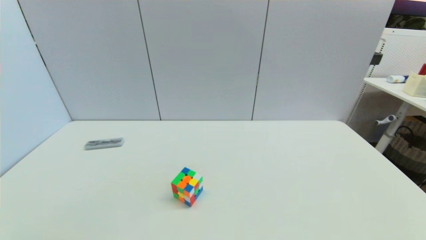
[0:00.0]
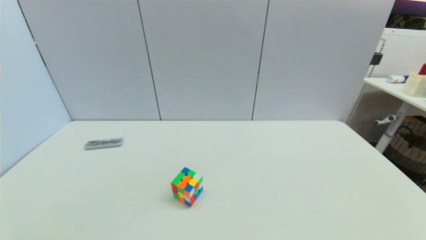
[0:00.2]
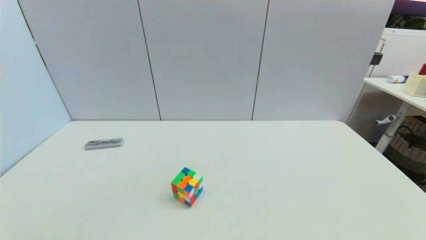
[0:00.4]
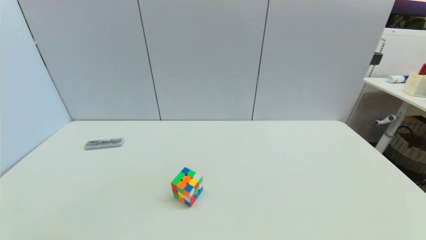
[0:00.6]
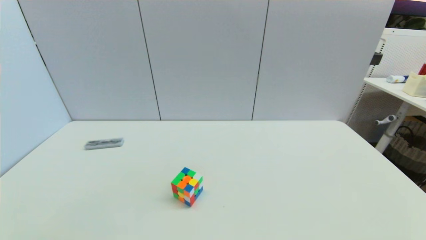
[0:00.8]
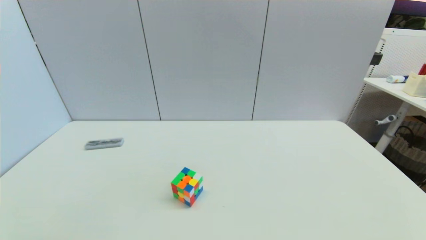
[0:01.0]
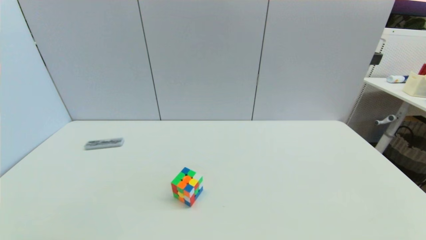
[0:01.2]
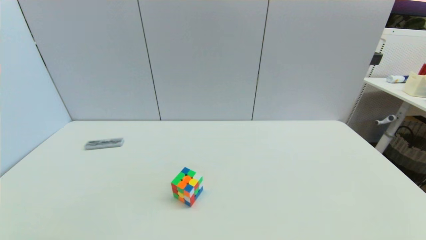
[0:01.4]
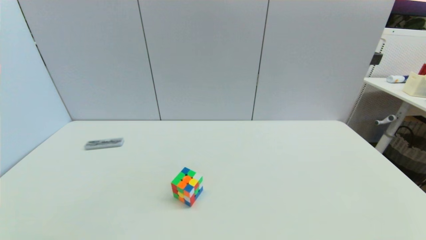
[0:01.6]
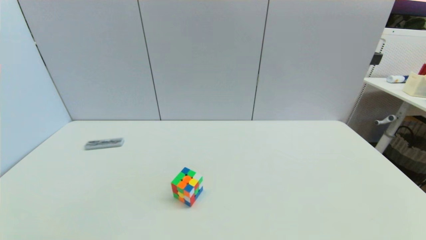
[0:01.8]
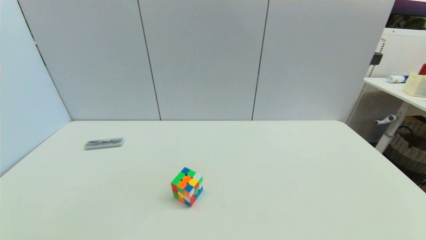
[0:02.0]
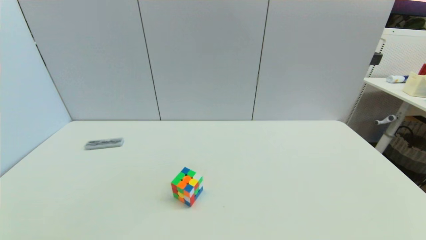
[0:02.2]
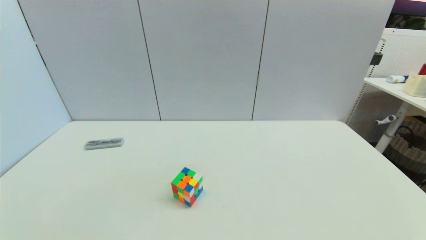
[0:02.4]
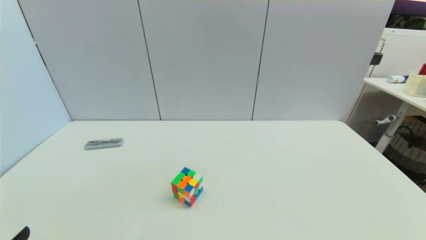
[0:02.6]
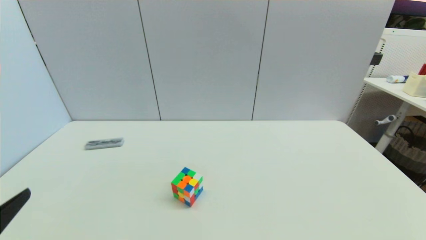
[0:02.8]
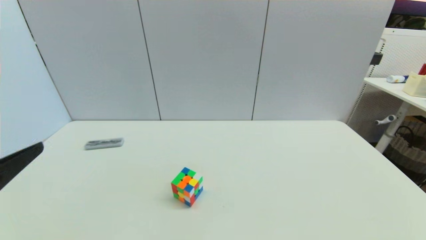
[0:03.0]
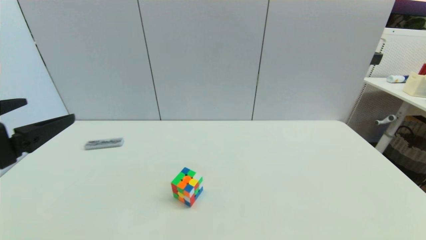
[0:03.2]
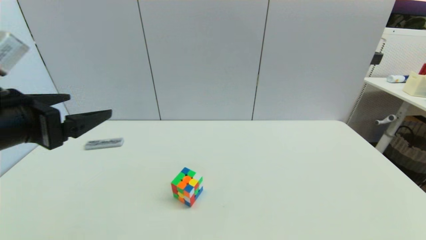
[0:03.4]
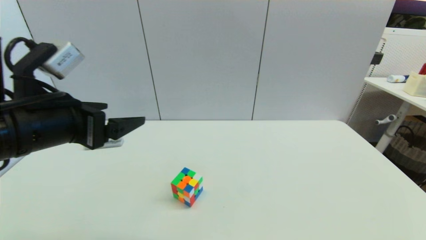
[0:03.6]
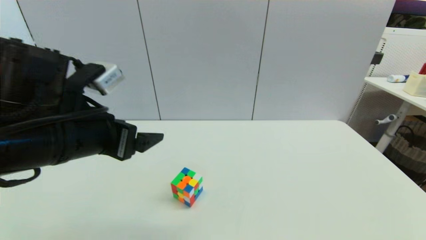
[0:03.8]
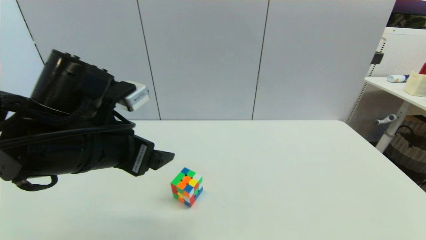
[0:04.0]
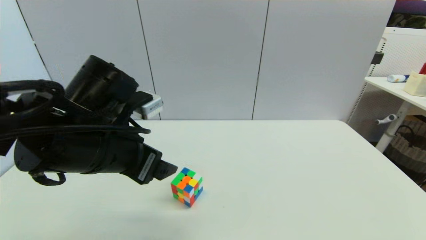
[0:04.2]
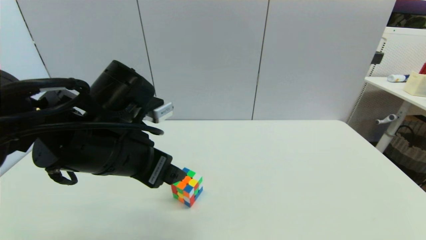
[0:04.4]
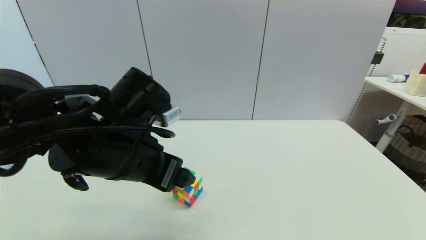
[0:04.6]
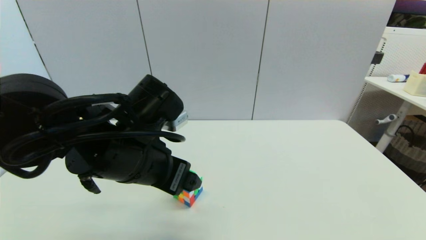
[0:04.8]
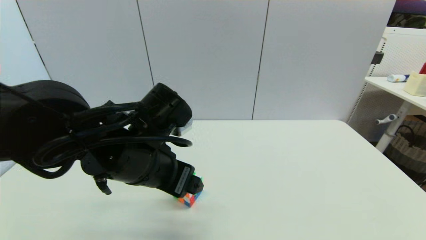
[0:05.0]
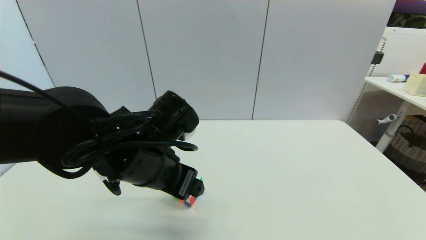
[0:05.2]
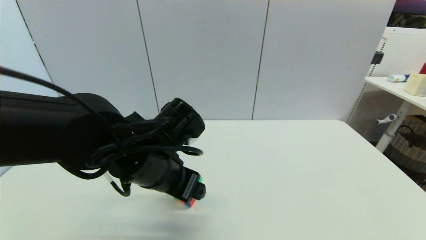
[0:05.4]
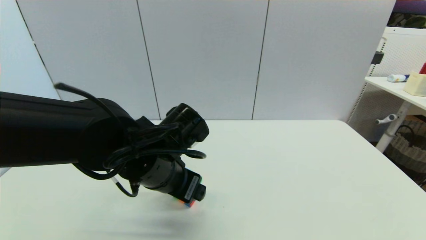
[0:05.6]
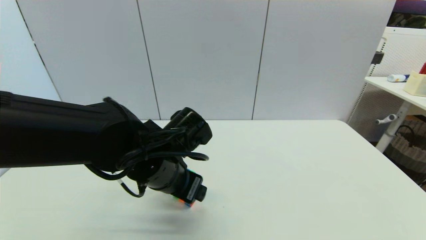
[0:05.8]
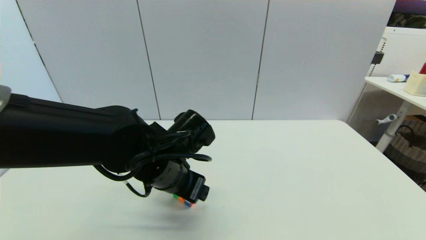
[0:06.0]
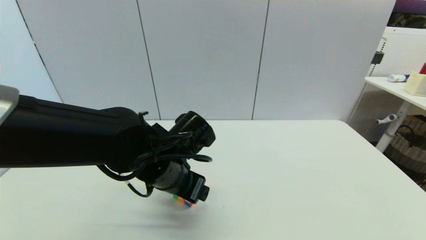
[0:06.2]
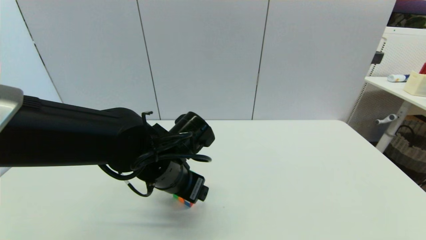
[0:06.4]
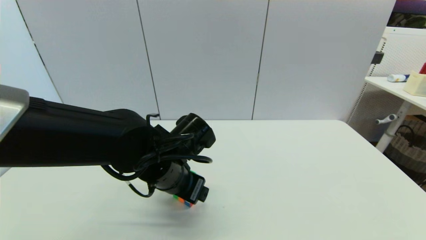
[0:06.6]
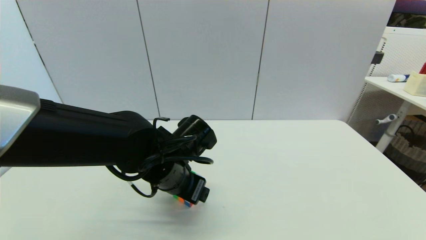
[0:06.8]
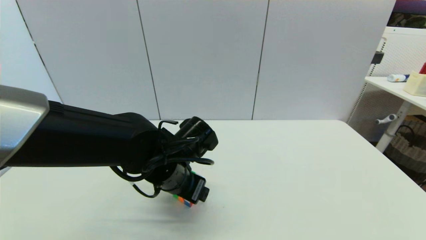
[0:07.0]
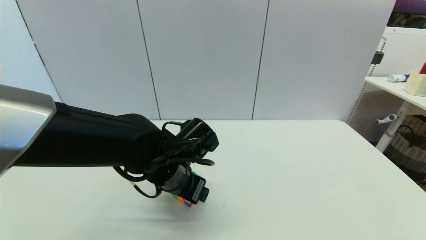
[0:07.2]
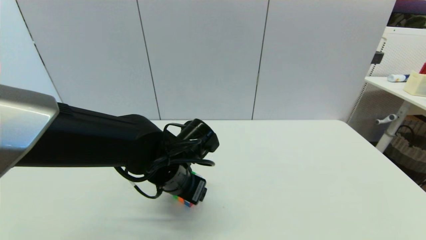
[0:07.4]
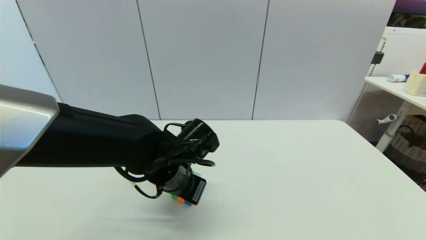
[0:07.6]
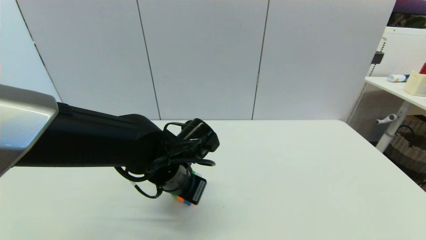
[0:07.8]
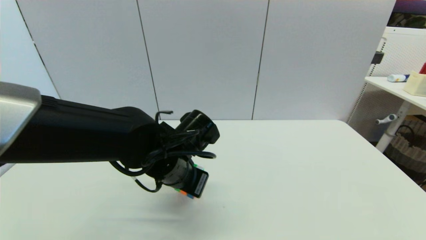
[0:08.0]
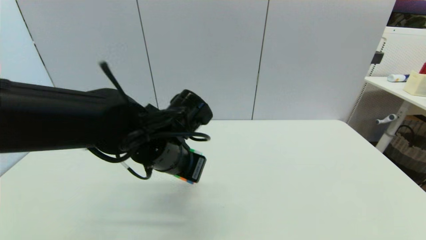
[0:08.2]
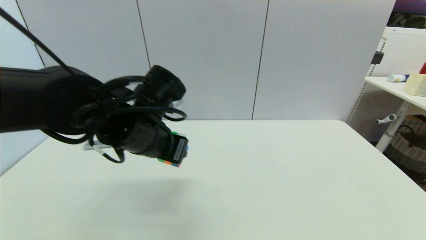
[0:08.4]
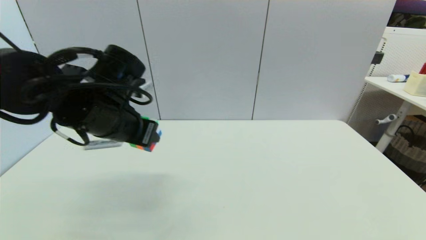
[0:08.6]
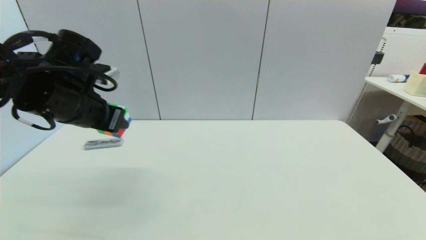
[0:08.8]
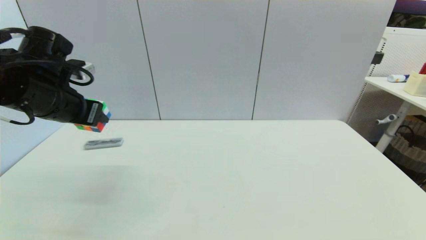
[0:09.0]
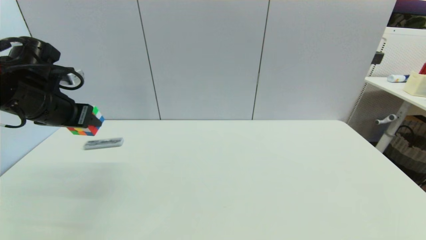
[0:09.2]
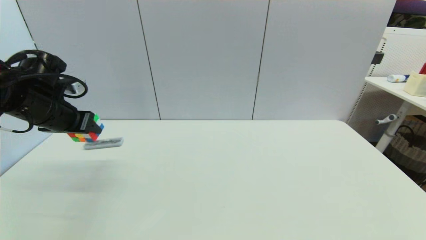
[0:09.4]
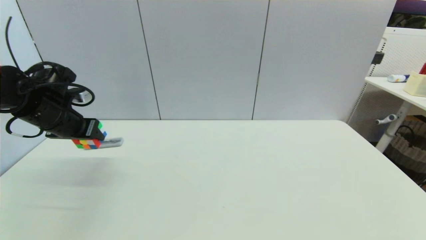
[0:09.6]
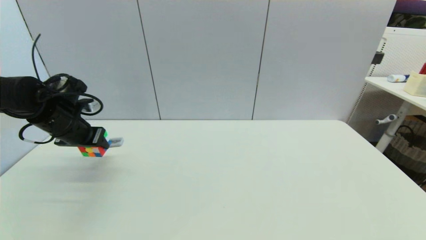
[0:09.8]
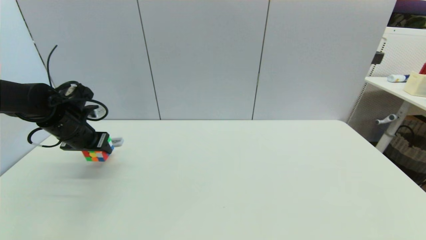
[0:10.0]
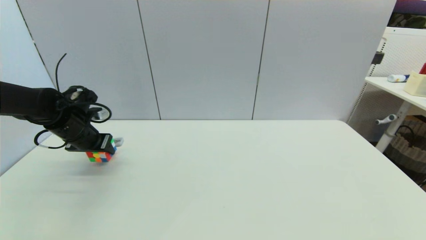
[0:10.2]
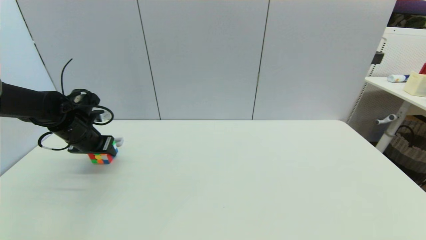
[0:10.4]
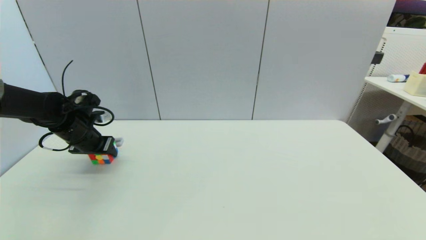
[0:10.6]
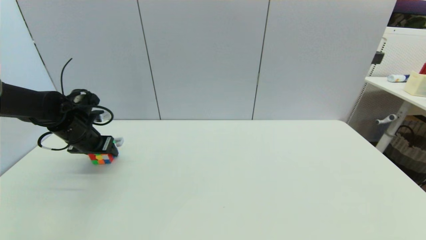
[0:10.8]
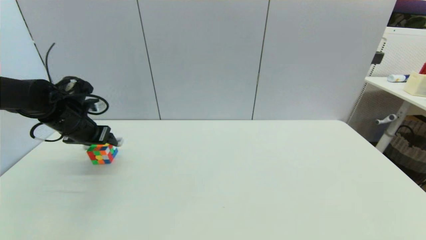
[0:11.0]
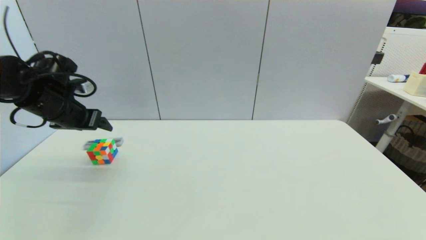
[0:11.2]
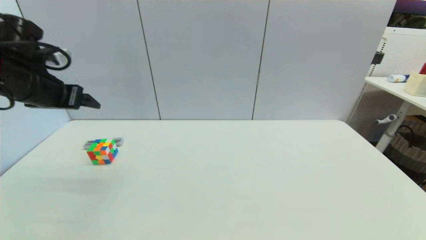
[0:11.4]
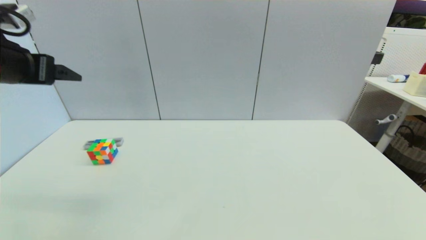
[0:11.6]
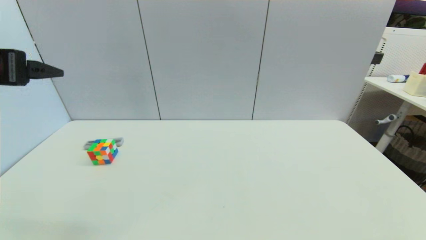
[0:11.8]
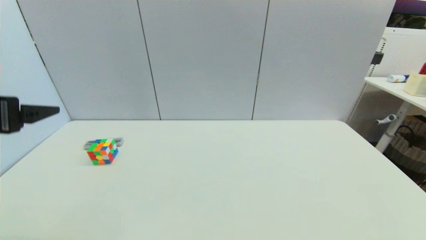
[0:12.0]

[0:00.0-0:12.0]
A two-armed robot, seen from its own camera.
Step, 0:02.6 to 0:07.6: Grasp the magic cube with left gripper.
Step, 0:07.8 to 0:11.0: Place the magic cube on the table with left gripper.
0:00.0 to 0:01.6: Both grippers stay about where they are.
0:01.6 to 0:03.0: The left gripper goes approximately 20 cm upward and forward.
0:03.0 to 0:04.4: The left gripper goes approximately 20 cm to the right and forward.
0:04.4 to 0:06.0: The left gripper moves downward and to the right, approximately 10 cm.
0:06.0 to 0:07.6: The left gripper closes.
0:07.6 to 0:09.0: The left gripper is displaced to the left and upward by roughly 25 cm.
0:09.0 to 0:10.4: The left gripper travels downward, forward and to the left by roughly 15 cm.
0:10.4 to 0:12.0: The left gripper travels backward and upward by some 25 cm, and opens its fingers.

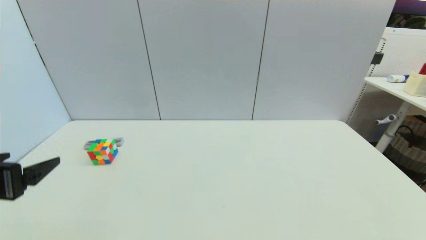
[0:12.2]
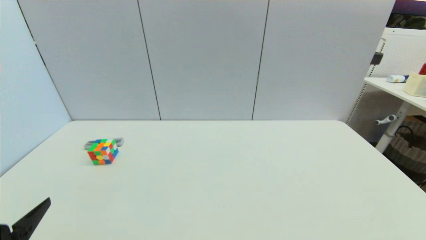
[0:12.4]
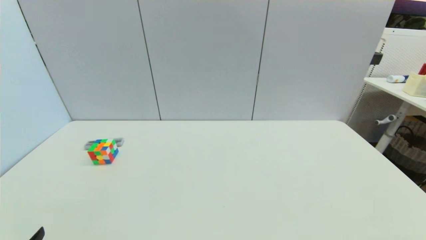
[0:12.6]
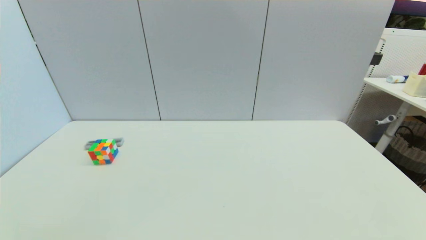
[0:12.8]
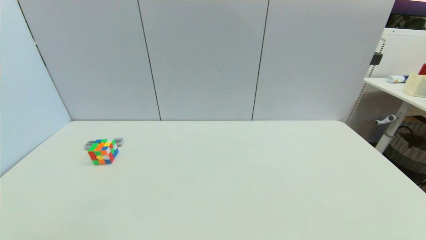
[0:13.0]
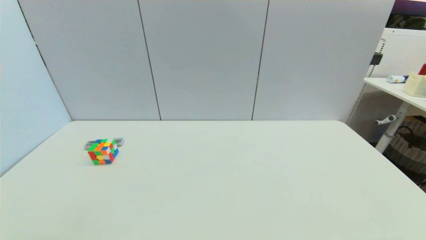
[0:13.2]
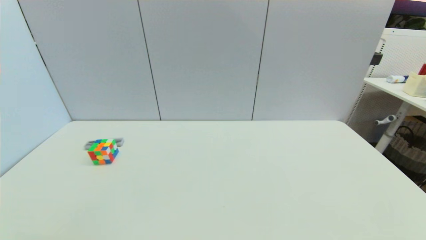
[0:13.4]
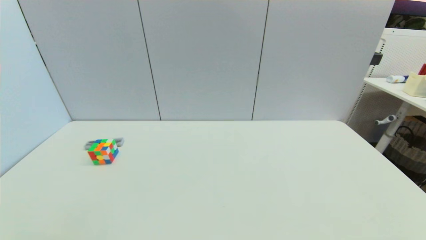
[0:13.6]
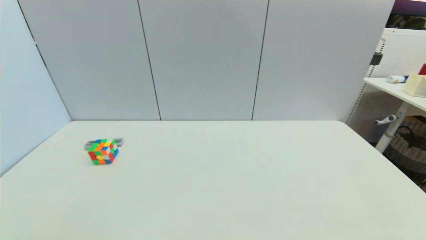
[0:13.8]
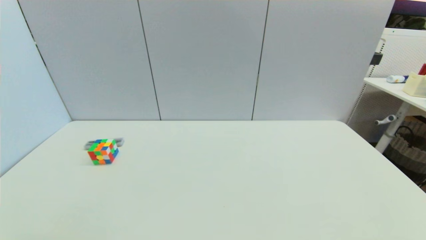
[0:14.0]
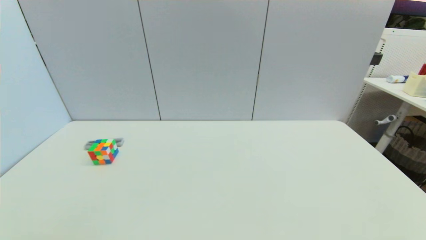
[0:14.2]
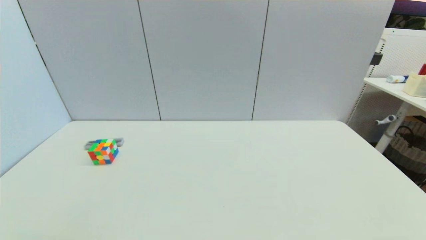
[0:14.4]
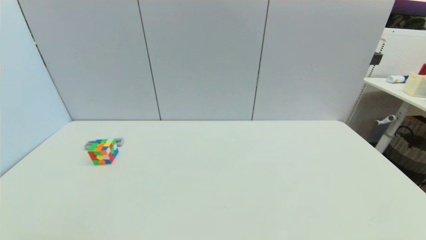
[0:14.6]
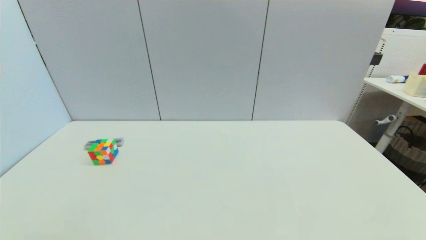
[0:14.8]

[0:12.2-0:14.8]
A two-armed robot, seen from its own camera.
0:12.2 to 0:13.4: The left gripper moves downward and backward, roughly 20 cm.
0:13.4 to 0:14.8: The two grippers keep their place.
